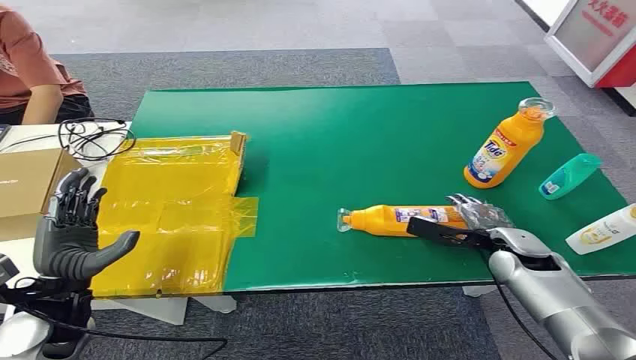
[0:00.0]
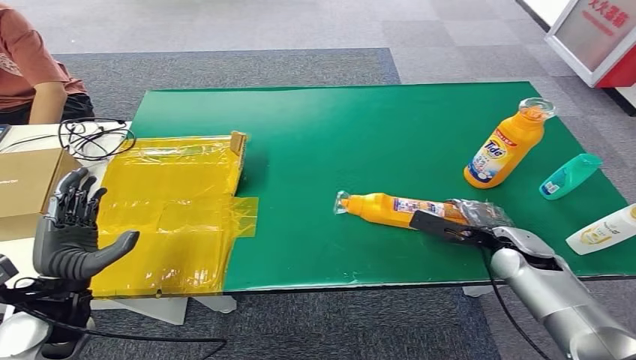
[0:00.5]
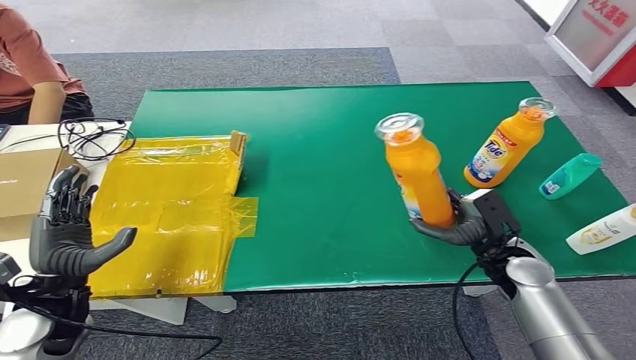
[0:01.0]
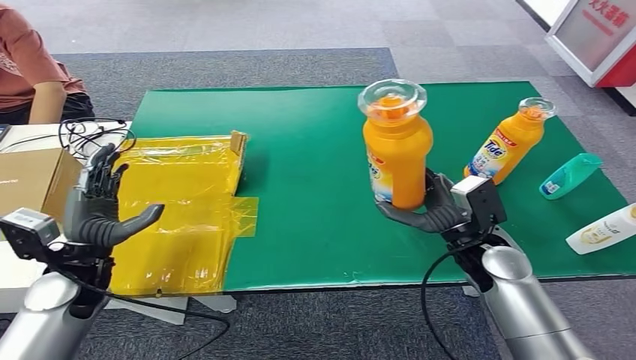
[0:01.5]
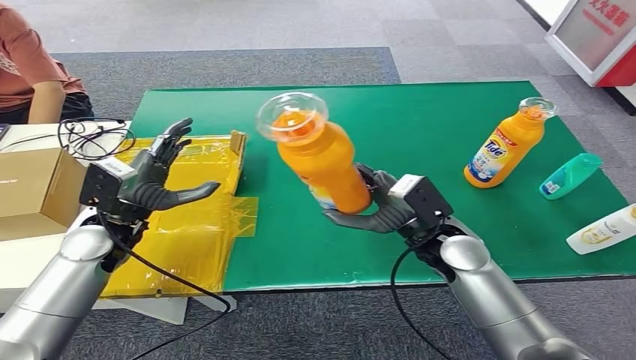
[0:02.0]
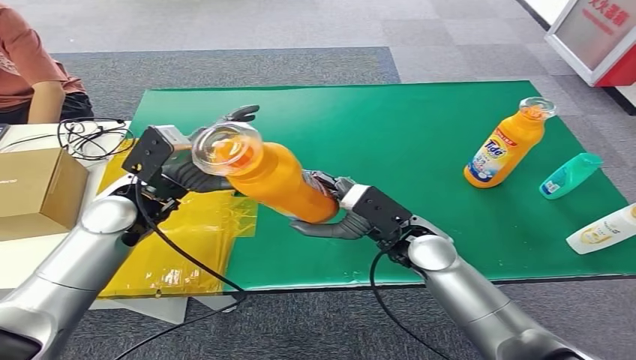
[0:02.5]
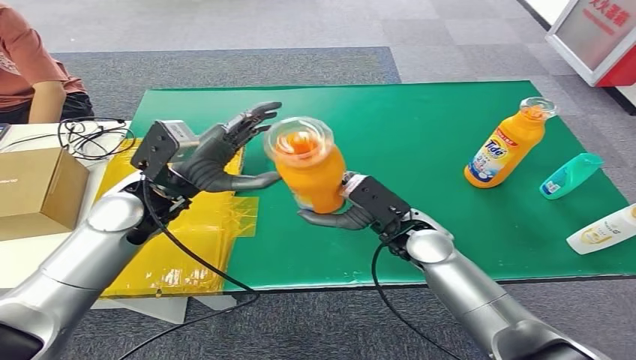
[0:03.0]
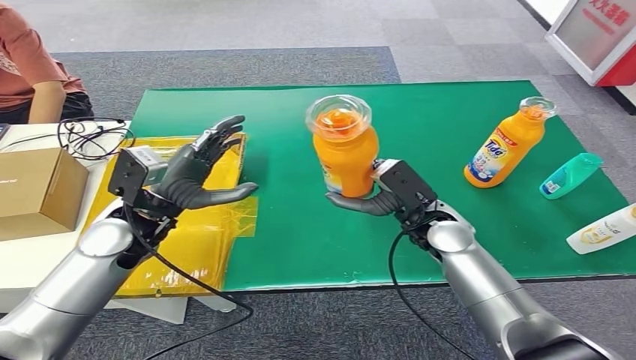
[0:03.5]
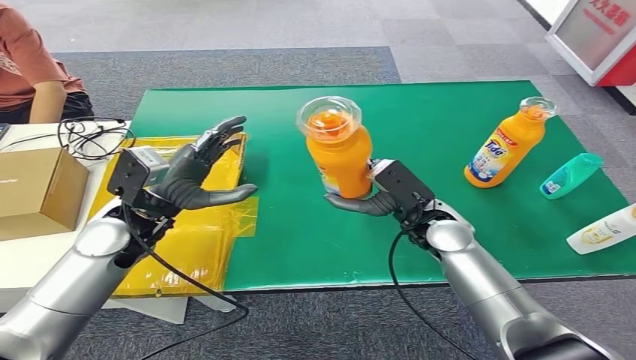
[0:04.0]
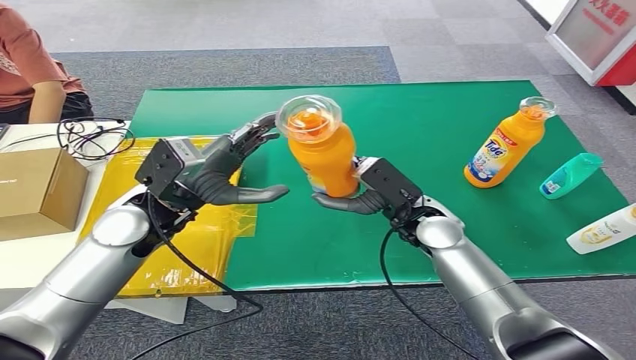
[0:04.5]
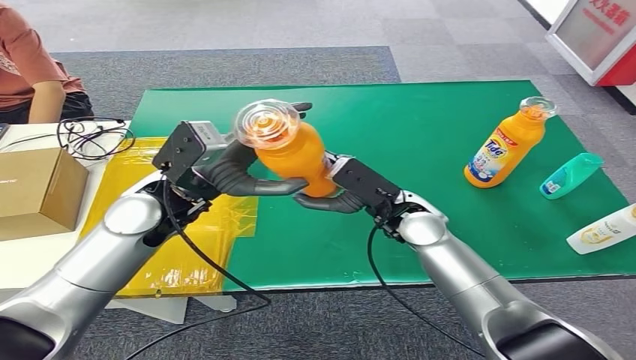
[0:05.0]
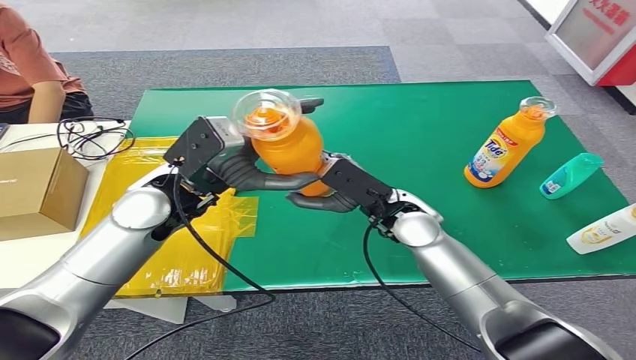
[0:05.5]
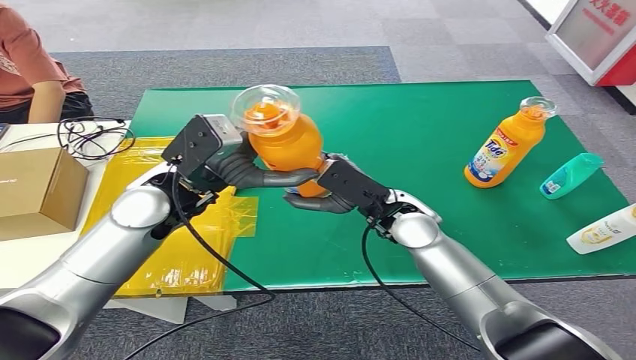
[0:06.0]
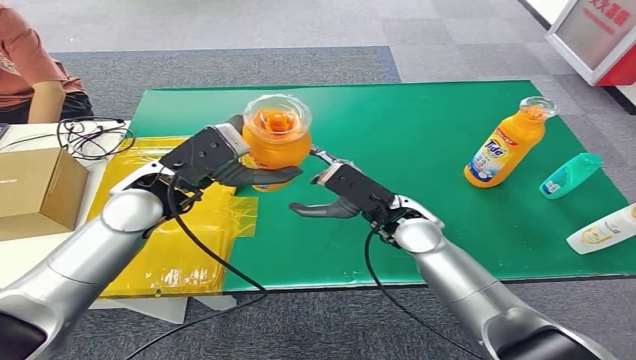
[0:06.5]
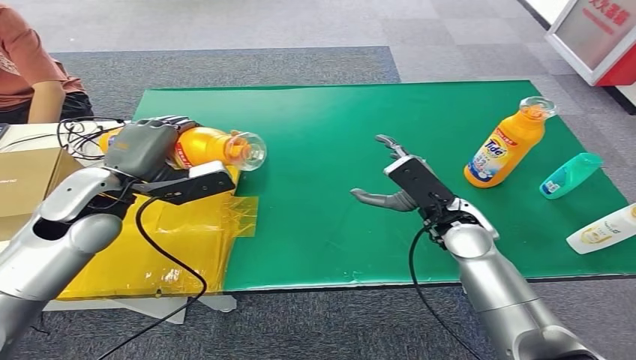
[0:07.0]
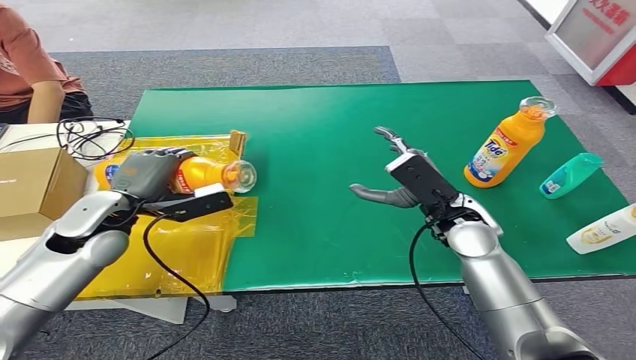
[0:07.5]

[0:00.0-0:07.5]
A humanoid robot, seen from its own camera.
Step, 0:00.0 to 0:01.0: Pick up the bottle from the table.
Step, 0:01.5 to 0:07.5: Turn the bottle to the front side.
0:02.0 to 0:04.0: The left hand travels to the right by approximately 5 cm.
0:04.0 to 0:05.5: The left hand heads to the right and upward, covering some 10 cm, while the right hand heads to the left, covering roughly 5 cm.

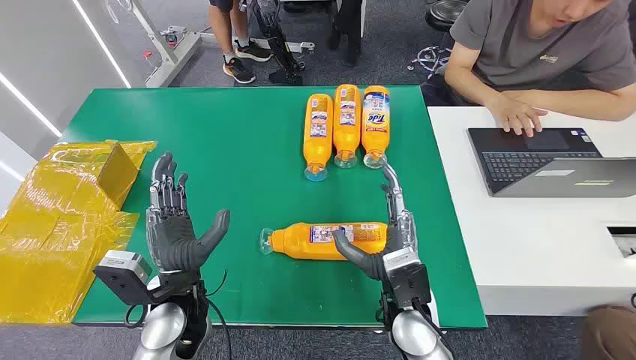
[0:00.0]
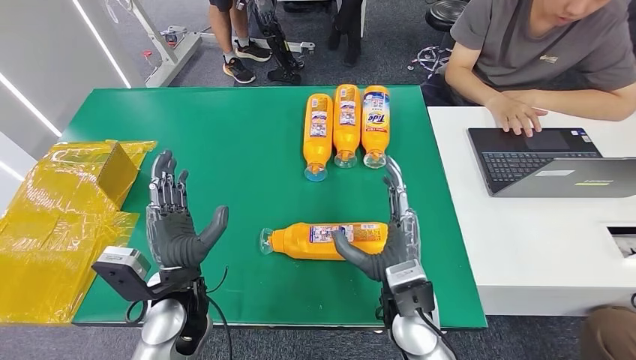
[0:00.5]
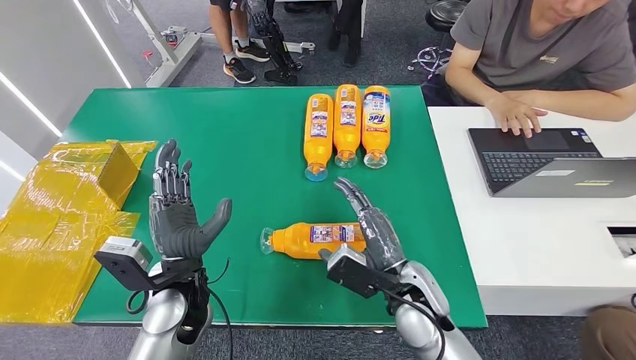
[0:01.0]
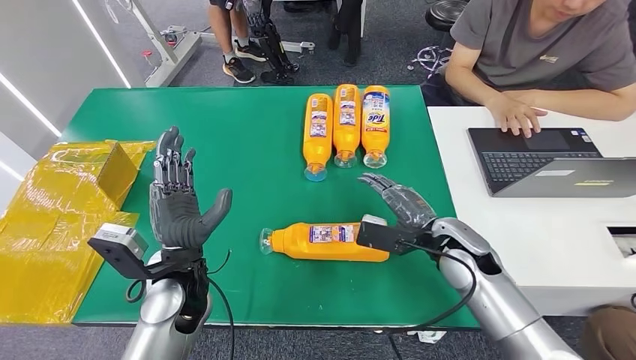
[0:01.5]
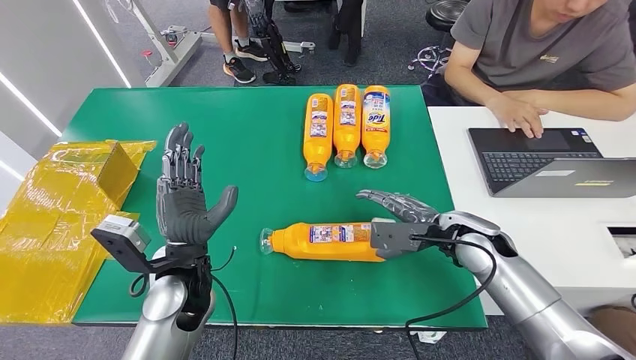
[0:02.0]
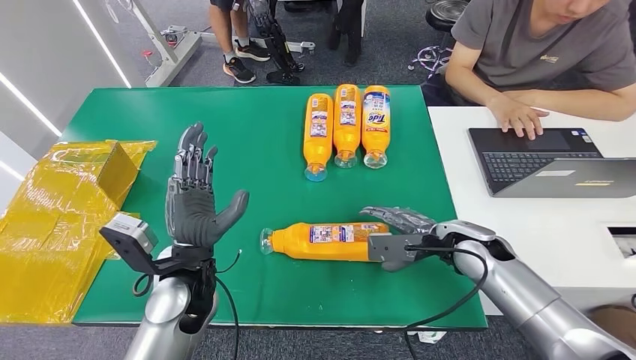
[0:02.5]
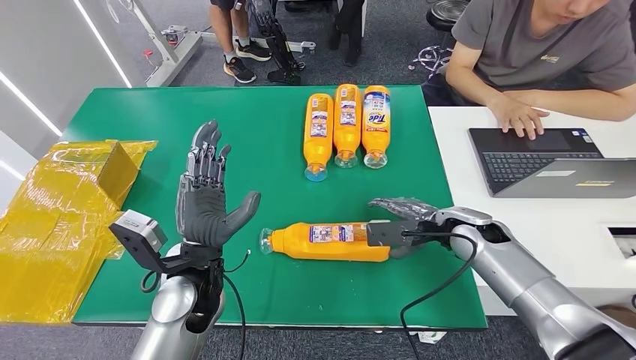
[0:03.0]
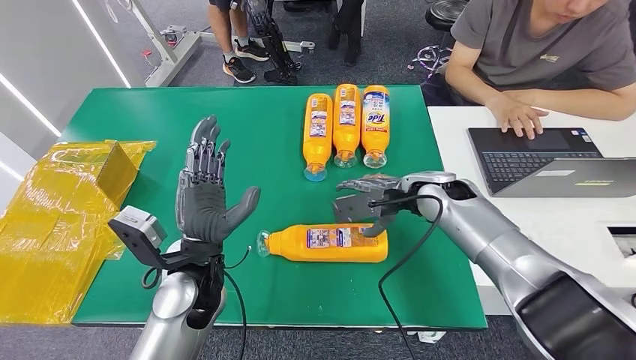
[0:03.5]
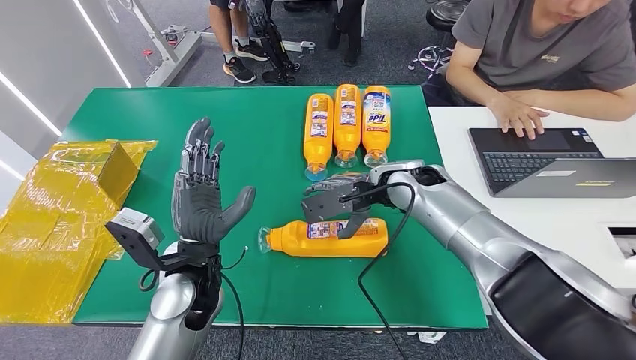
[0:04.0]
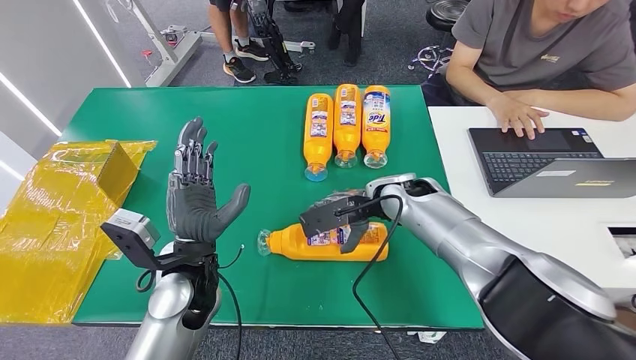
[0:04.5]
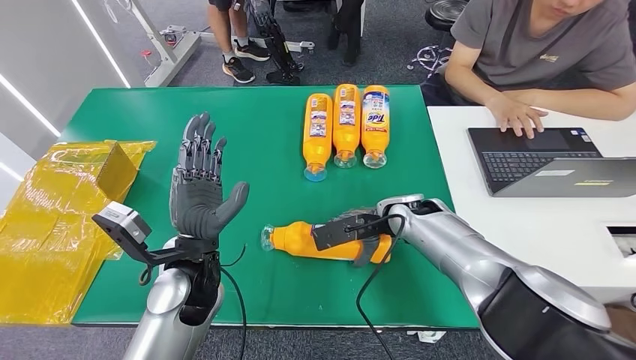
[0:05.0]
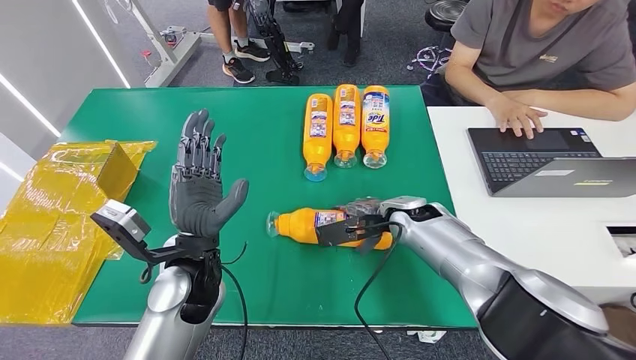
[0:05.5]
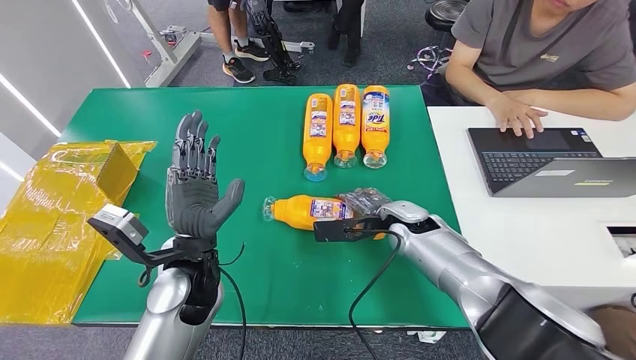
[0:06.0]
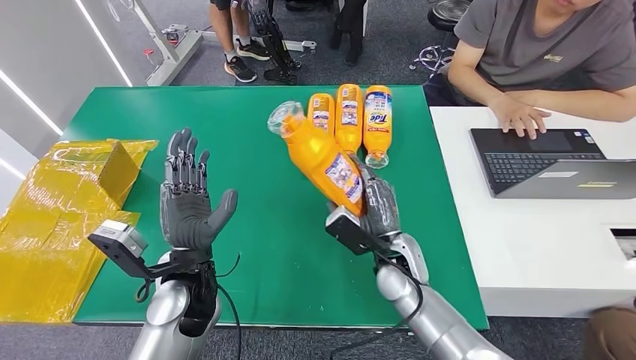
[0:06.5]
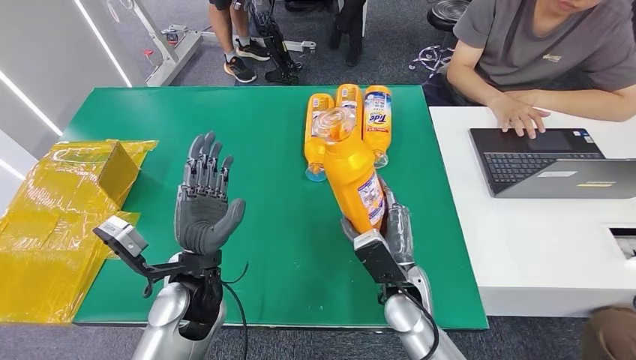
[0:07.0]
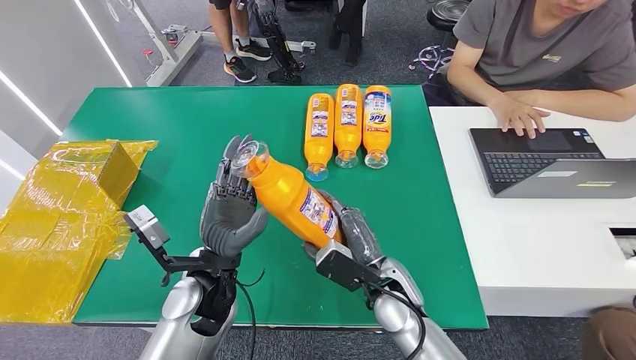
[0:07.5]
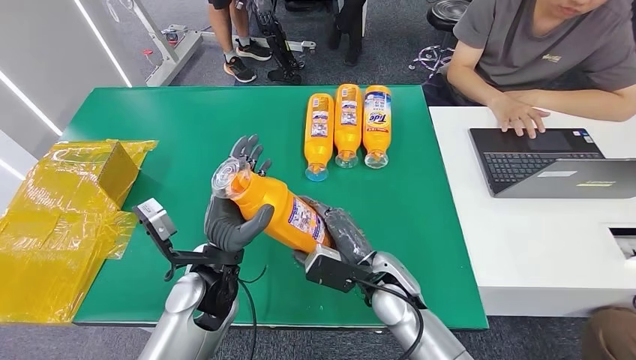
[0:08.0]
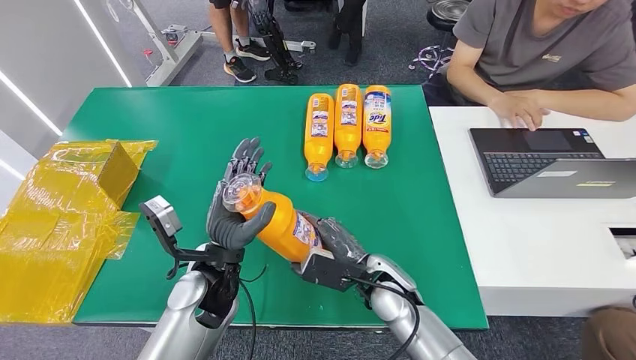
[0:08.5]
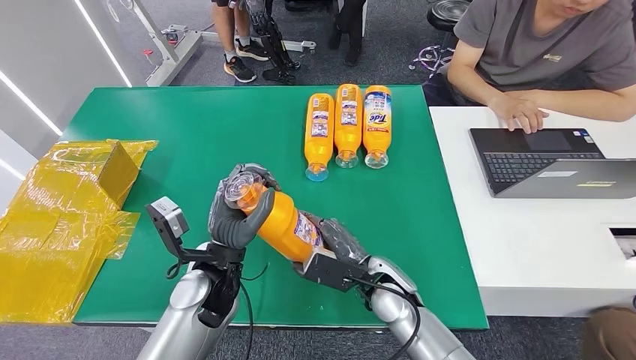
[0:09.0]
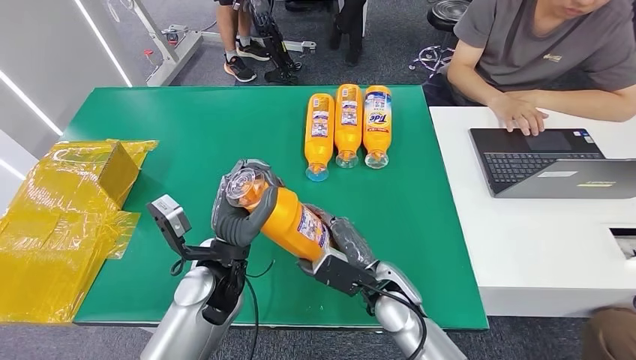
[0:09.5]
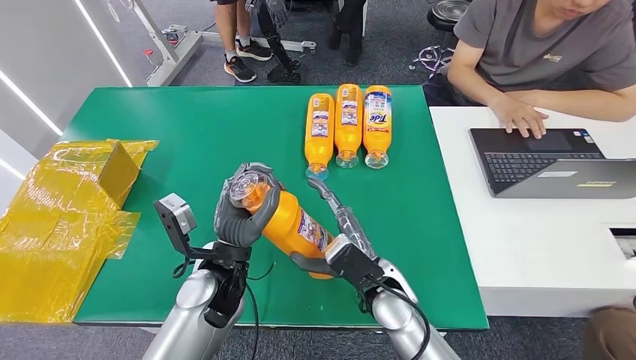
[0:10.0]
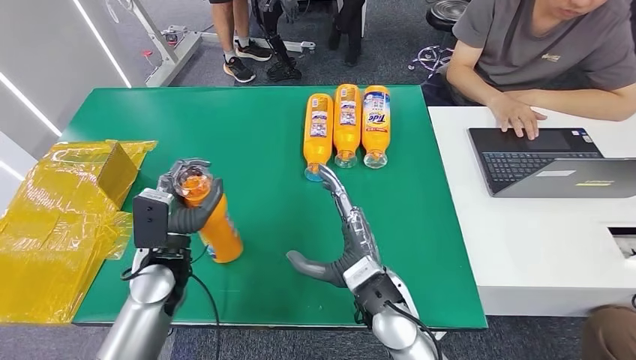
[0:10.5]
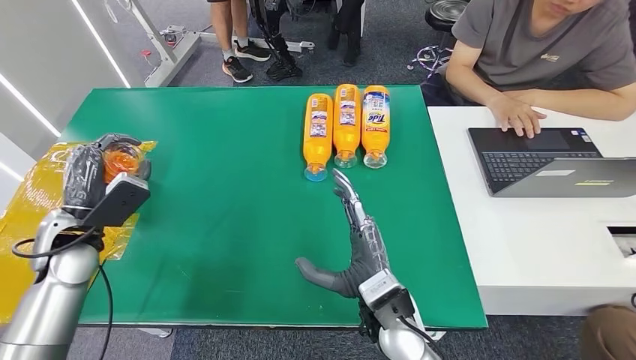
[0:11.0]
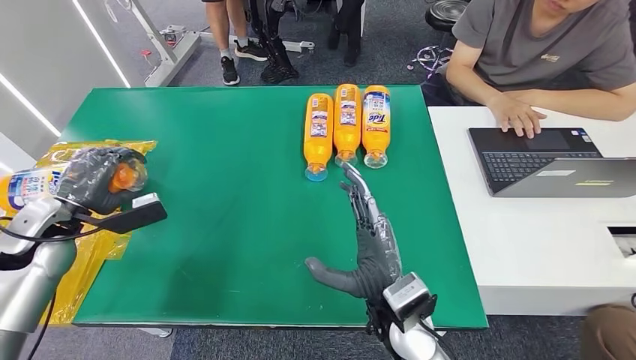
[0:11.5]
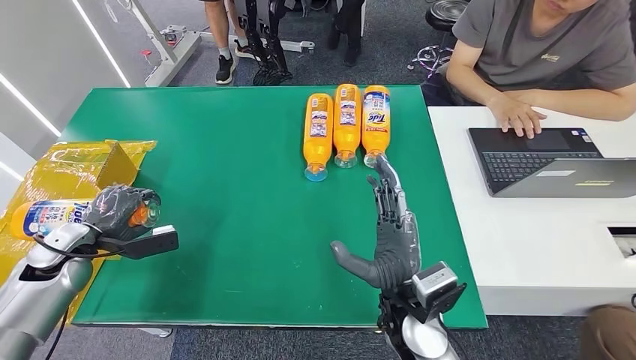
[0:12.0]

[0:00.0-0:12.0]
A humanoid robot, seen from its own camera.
Step, 0:00.0 to 0:08.0: Pick up the bottle from the table.
0:02.0 to 0:04.0: The right hand goes approximately 15 cm to the left, forward and upward.
0:04.0 to 0:06.0: The right hand heads downward, covering approximately 10 cm.

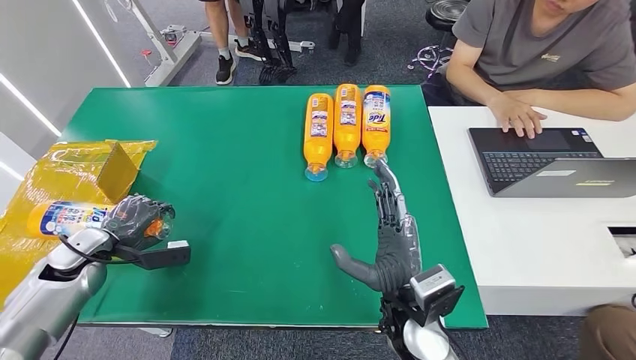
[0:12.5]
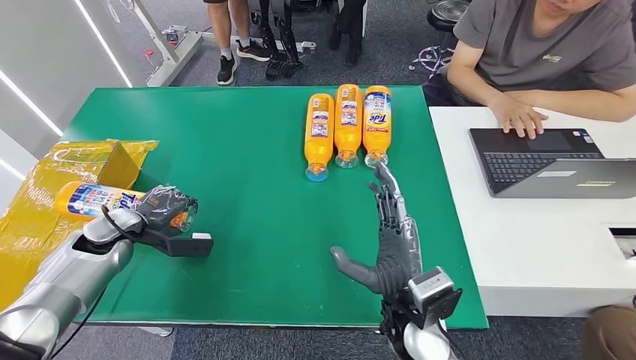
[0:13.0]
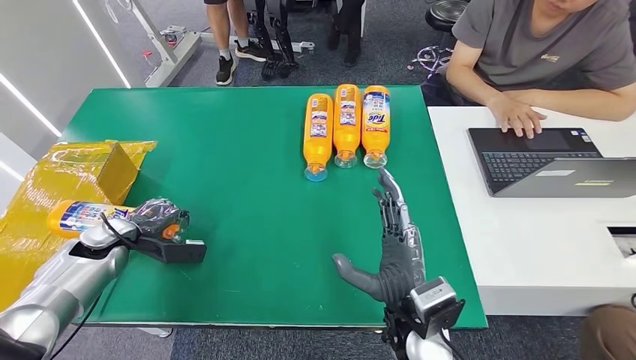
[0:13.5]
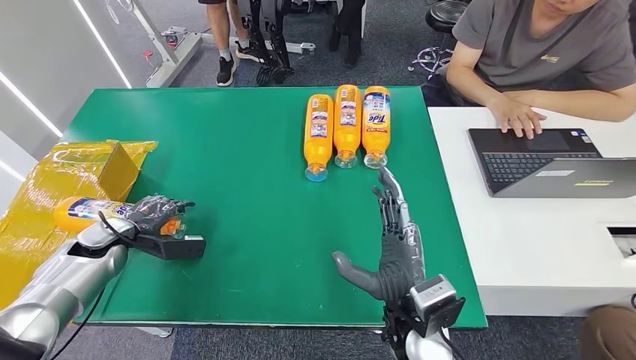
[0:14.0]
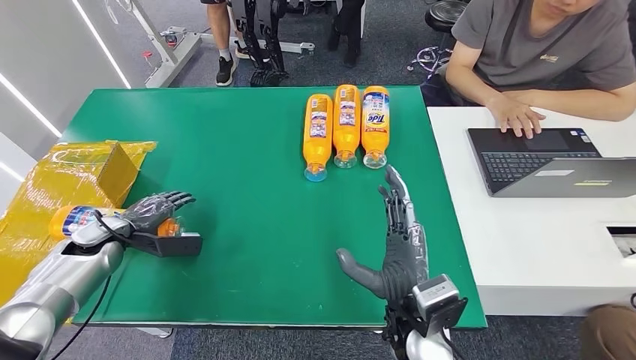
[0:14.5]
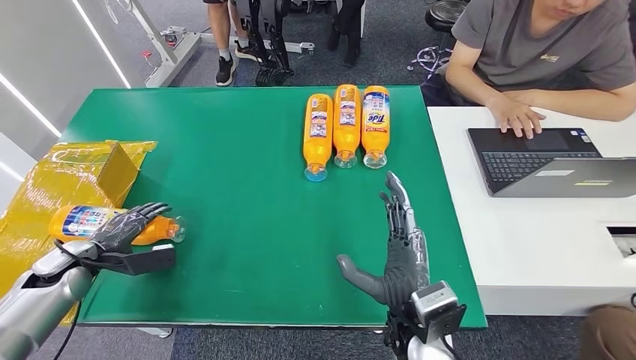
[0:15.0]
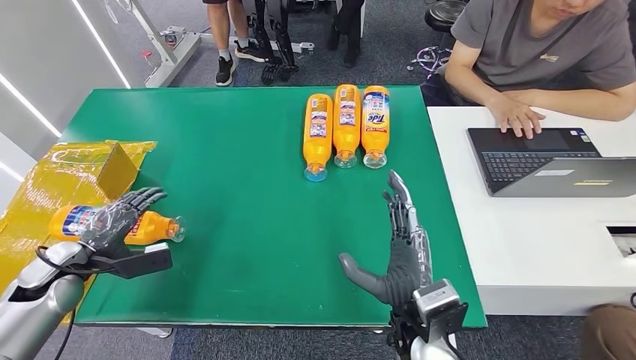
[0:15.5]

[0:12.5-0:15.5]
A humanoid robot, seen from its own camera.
0:12.5 to 0:14.0: There are only small adjustments of the hands.
0:14.0 to 0:15.5: The left hand goes approximately 5 cm backward.
